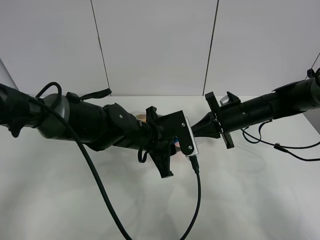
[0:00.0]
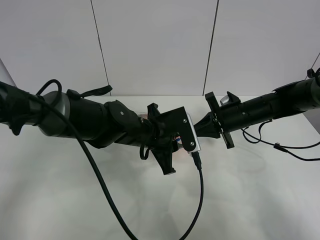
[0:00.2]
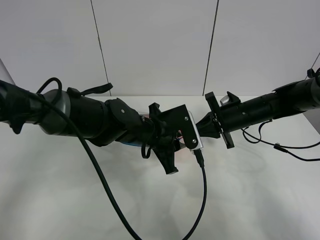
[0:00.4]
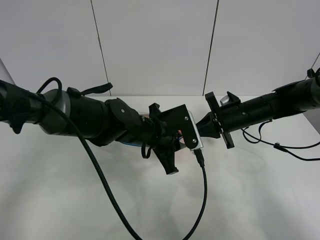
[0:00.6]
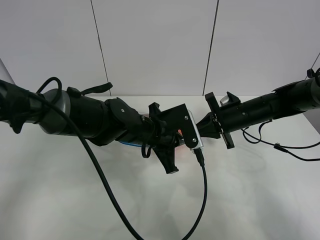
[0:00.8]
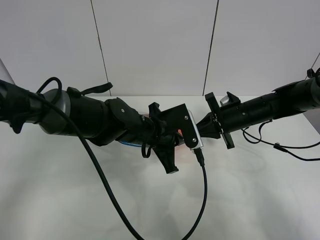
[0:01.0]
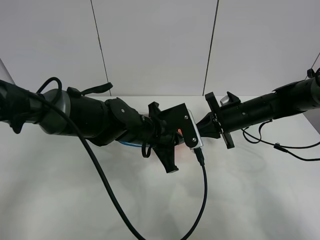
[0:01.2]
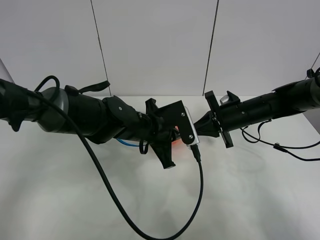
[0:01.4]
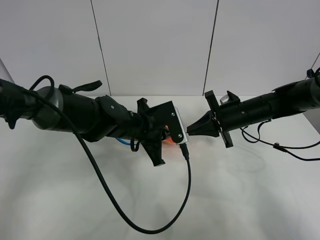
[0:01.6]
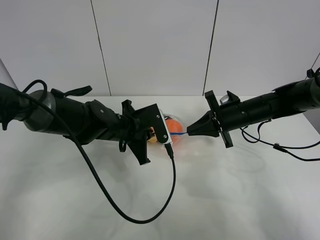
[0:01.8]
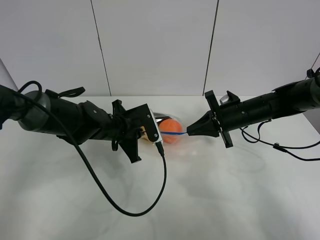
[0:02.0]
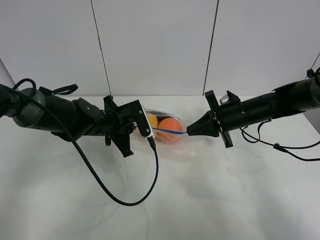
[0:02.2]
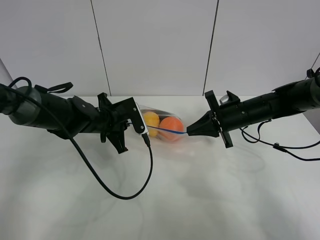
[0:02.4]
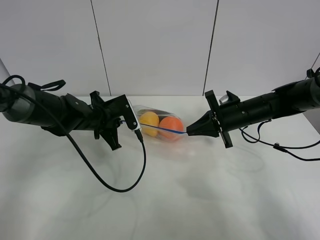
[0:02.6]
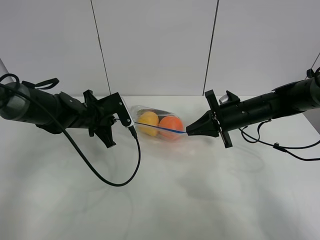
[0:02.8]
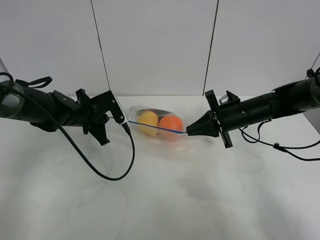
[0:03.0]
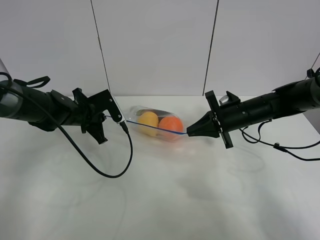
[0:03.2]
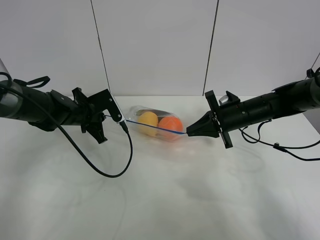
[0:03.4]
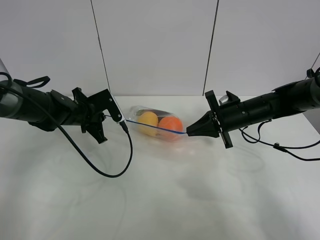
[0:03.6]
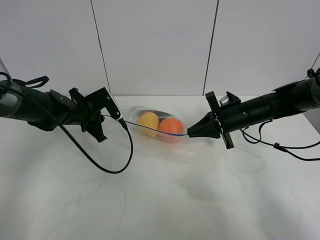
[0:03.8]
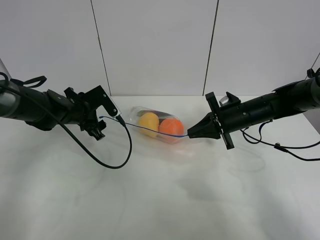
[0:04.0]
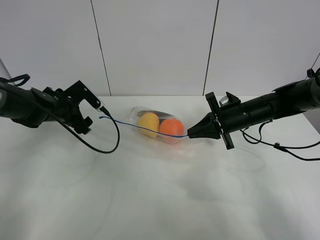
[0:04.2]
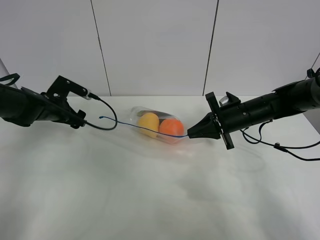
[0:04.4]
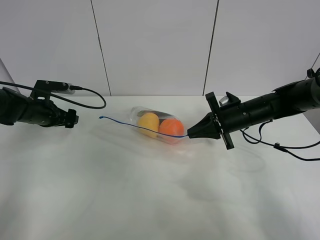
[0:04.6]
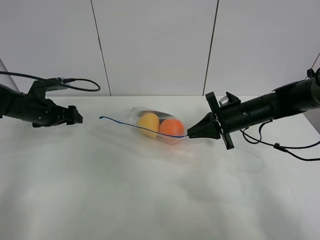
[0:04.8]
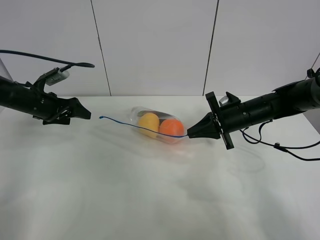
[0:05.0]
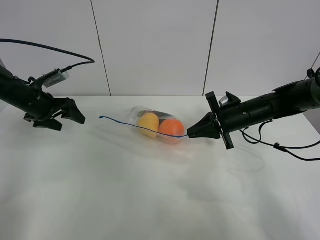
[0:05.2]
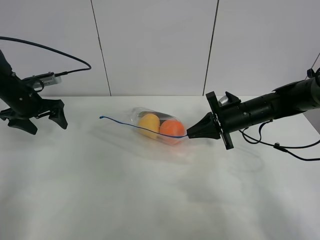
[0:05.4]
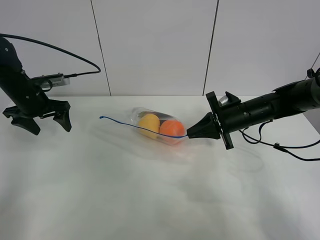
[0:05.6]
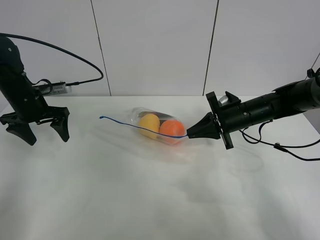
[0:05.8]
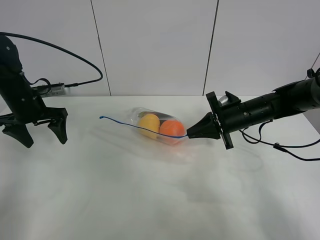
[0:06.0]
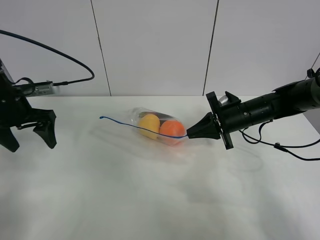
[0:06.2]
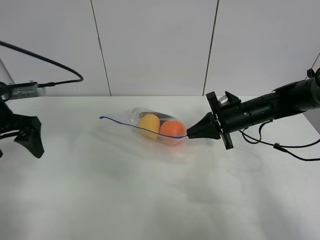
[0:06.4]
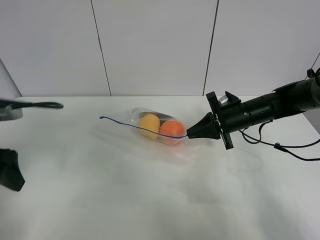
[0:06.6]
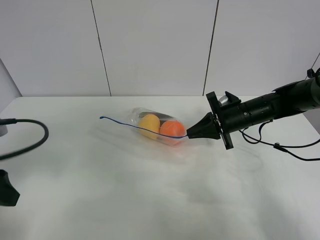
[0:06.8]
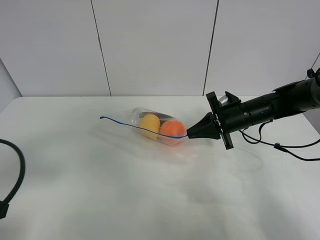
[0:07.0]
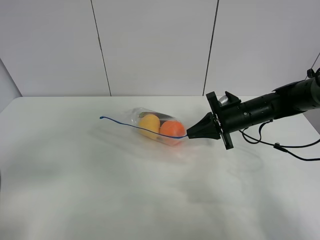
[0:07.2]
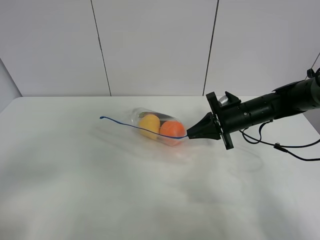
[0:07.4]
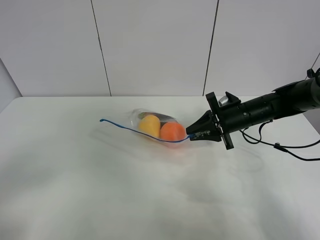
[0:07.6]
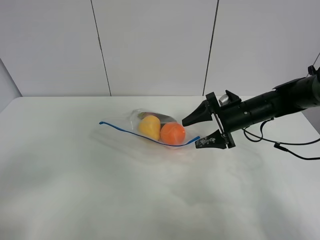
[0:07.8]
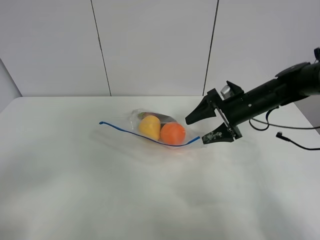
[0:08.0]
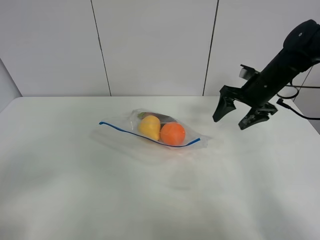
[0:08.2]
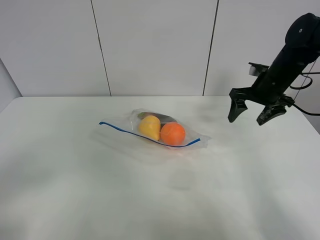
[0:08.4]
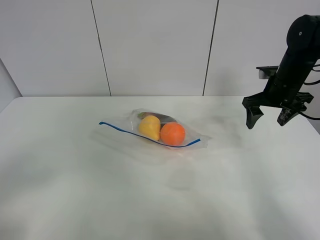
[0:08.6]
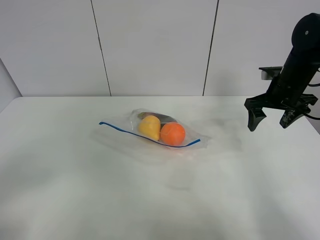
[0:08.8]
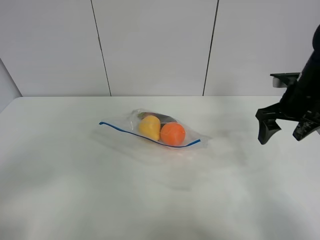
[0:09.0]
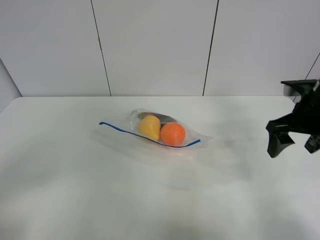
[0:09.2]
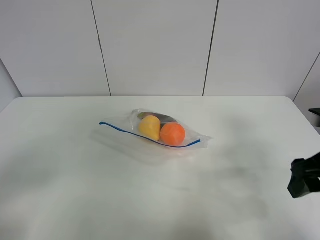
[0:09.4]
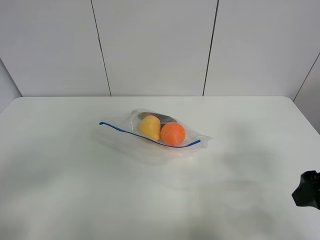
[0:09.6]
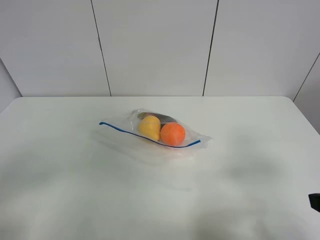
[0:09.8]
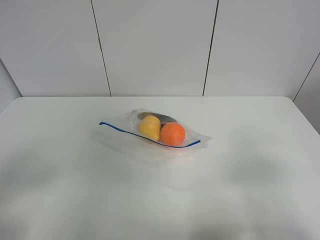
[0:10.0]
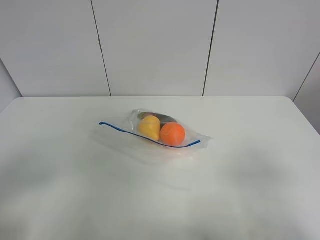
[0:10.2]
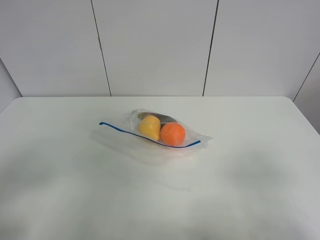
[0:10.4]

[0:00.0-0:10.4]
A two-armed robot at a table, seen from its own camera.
Step, 0:00.0 to 0:04.0: Pull the fruit bag with left gripper.
0:00.0 to 0:01.4: The grippers make only small movements.
0:01.4 to 0:03.0: The left gripper goes about 15 cm to the left.
0:03.0 to 0:04.4: The left gripper heads to the left, covering roughly 10 cm, and opens up.
0:04.4 to 0:06.0: The left gripper shifts approximately 5 cm upward.
0:06.0 to 0:07.4: The left gripper heads backward, covering about 35 cm.
0:07.4 to 0:09.0: The right gripper travels upward and to the right by approximately 10 cm, and opens its fingers.
0:09.0 to 0:10.4: The right gripper shifts roughly 30 cm backward.

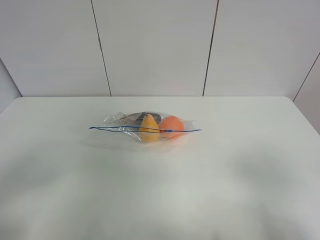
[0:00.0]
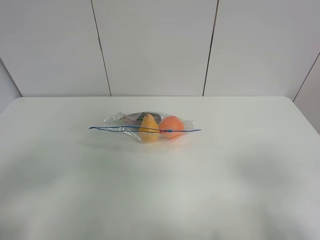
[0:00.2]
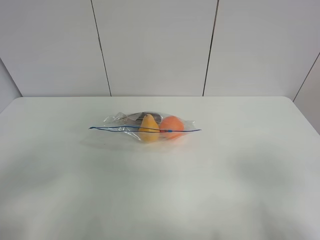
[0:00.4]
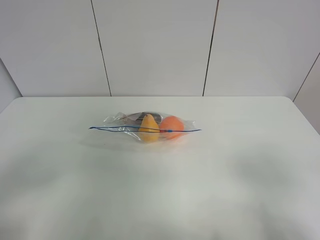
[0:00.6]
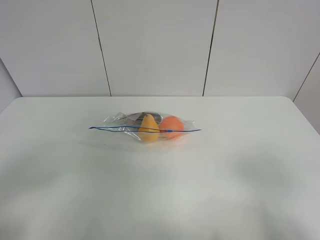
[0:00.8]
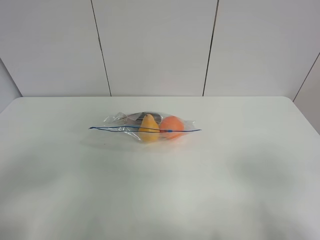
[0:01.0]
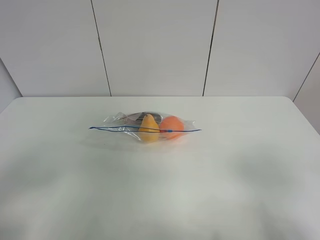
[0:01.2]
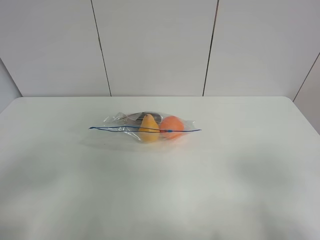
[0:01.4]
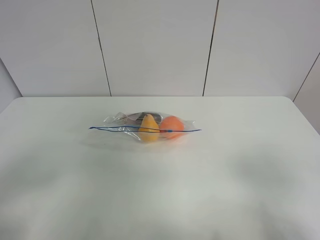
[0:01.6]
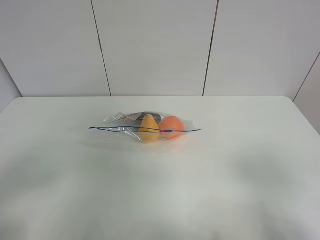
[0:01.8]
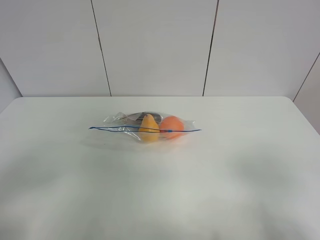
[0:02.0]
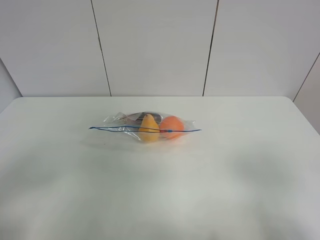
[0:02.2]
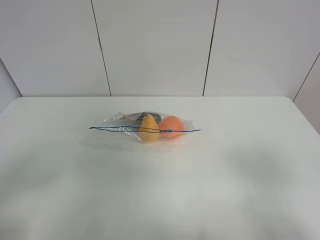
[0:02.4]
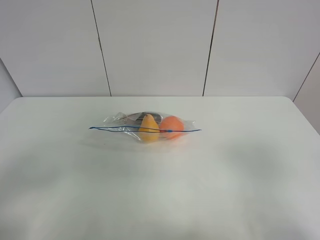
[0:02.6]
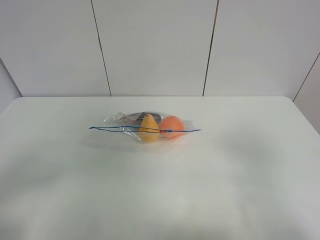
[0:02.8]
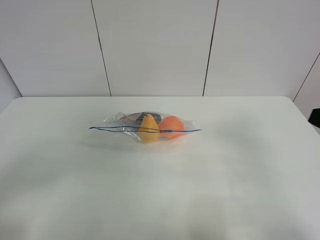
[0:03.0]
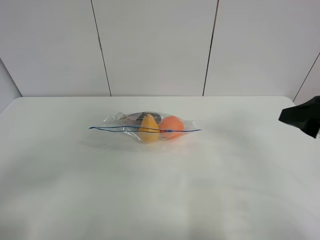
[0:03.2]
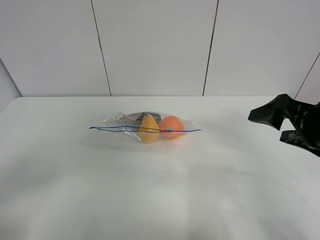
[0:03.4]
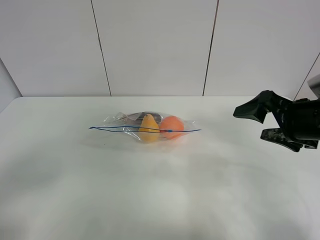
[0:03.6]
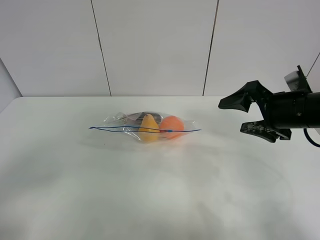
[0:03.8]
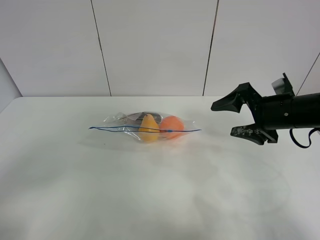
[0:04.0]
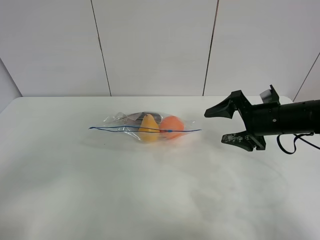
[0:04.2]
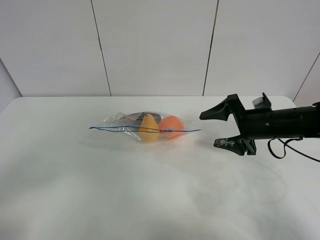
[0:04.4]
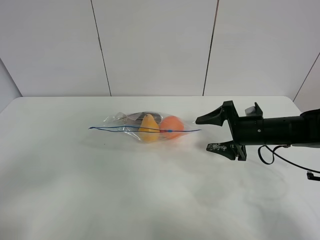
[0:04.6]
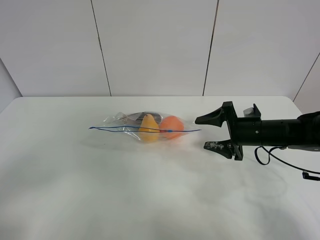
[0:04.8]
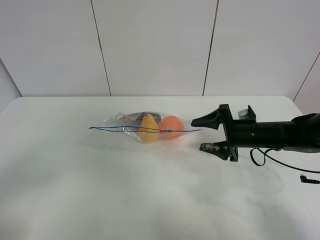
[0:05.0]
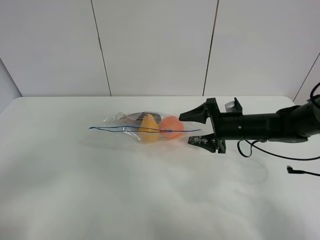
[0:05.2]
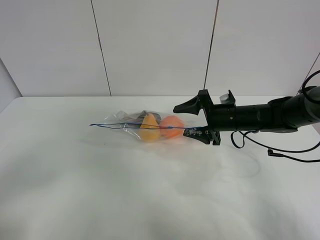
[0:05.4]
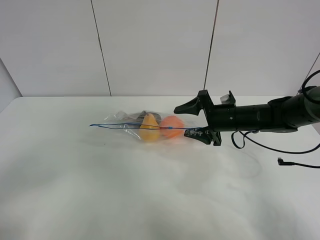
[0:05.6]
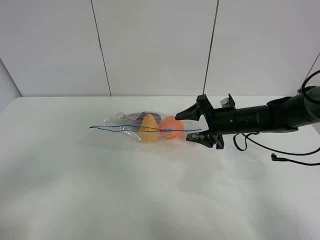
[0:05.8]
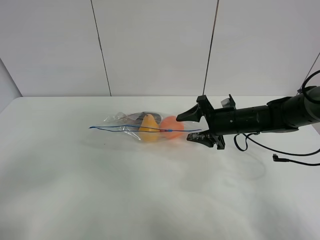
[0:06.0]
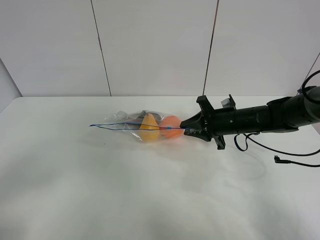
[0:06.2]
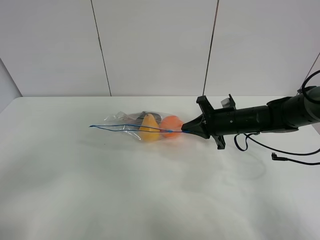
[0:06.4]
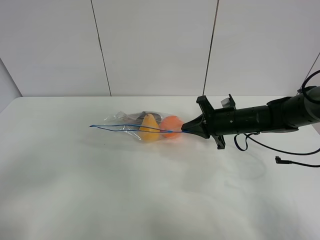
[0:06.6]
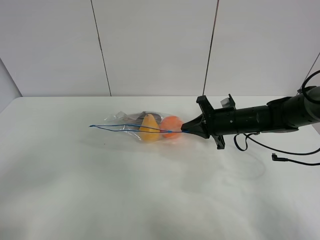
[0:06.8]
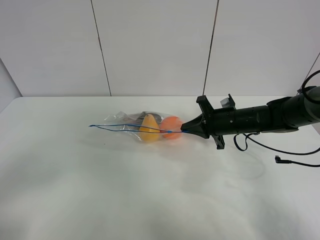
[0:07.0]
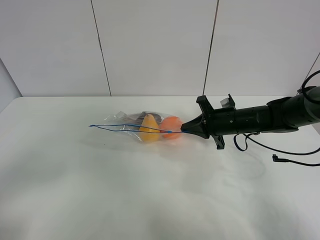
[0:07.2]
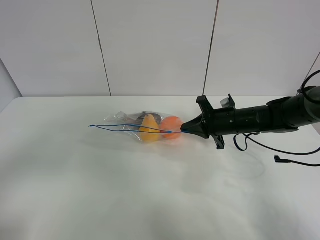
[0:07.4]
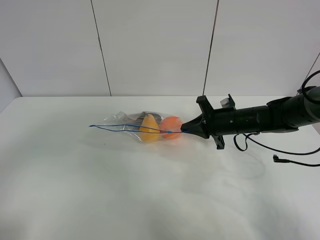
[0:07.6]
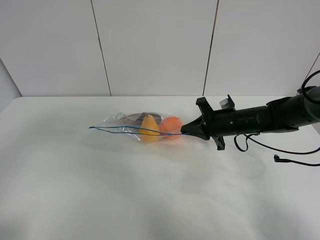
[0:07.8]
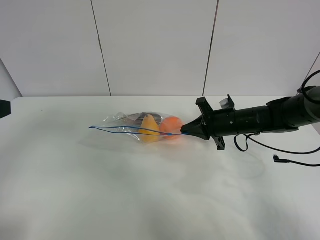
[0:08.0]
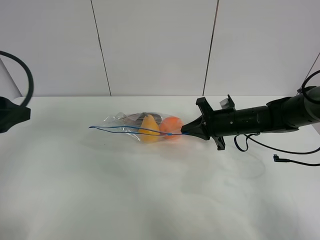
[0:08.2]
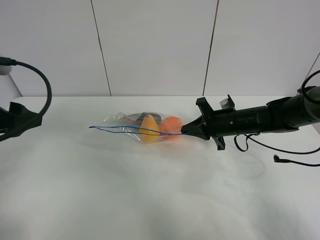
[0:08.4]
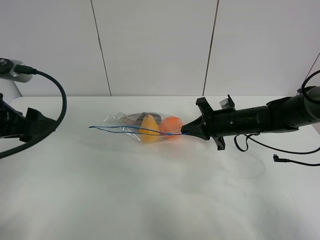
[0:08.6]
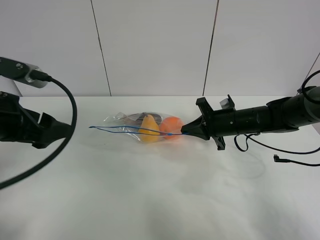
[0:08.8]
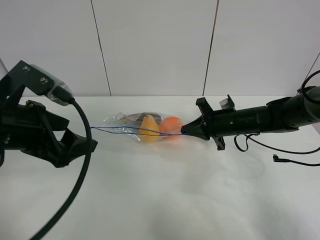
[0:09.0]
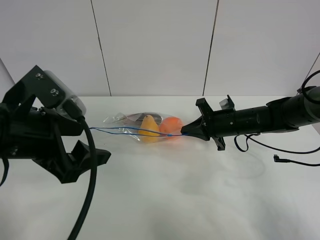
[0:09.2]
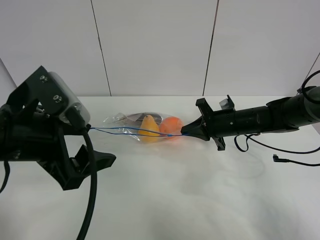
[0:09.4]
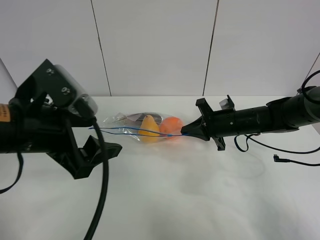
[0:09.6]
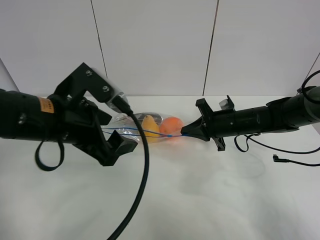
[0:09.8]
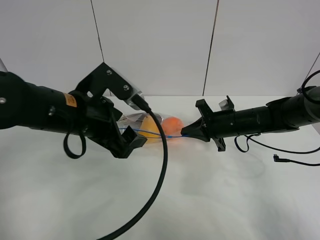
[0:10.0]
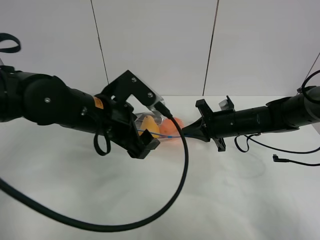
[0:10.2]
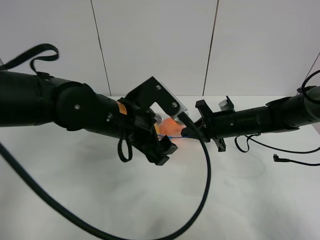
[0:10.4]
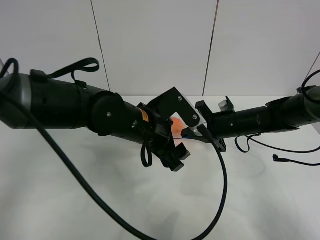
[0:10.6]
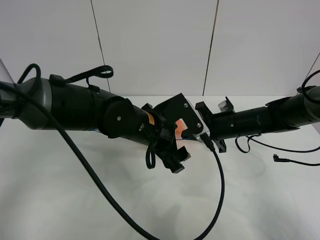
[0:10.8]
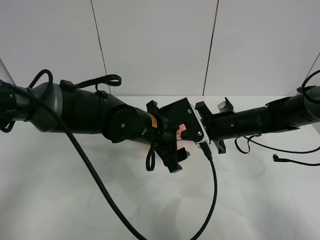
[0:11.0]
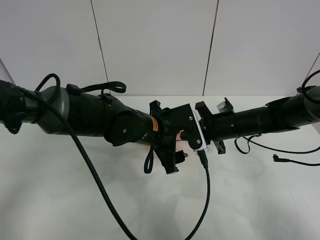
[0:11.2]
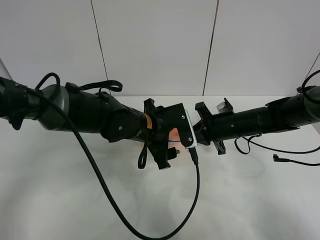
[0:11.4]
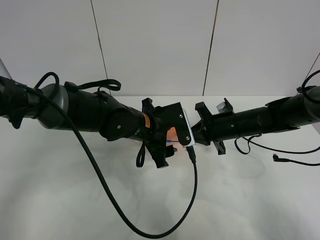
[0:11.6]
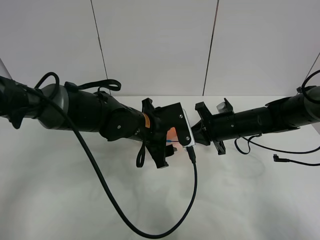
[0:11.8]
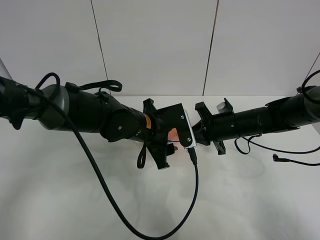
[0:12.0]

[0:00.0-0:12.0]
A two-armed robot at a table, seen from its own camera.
Step, 0:00.0 to 0:06.2: Grasp the fruit bag with right gripper.
0:00.0 to 0:01.6: Both grippers stay about where they are.
0:01.6 to 0:03.0: The right gripper is displaced forward by some 10 cm.
0:03.0 to 0:04.4: The right gripper travels forward and downward by approximately 25 cm.
0:04.4 to 0:06.0: The right gripper travels forward by about 5 cm.
0:06.0 to 0:07.6: The left gripper shifts some 10 cm forward and upward, while the right gripper closes up.
0:07.6 to 0:09.0: The left gripper travels forward and to the right by some 15 cm.
0:09.0 to 0:10.4: The left gripper shifts about 15 cm to the right, forward and downward.
0:10.4 to 0:12.0: The left gripper travels downward by roughly 5 cm.
